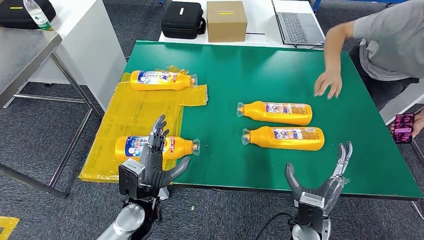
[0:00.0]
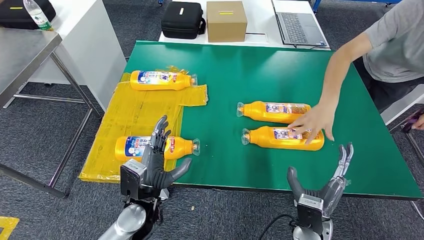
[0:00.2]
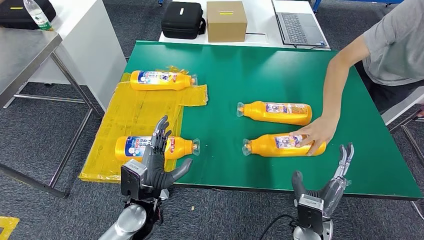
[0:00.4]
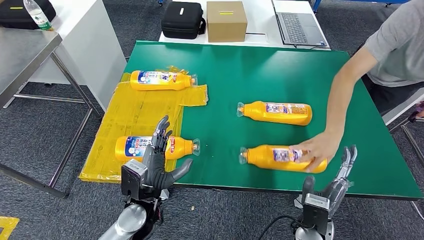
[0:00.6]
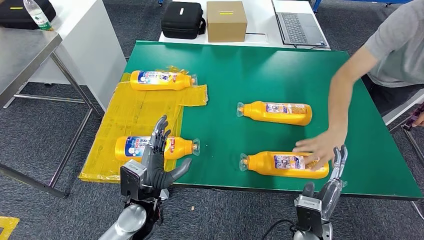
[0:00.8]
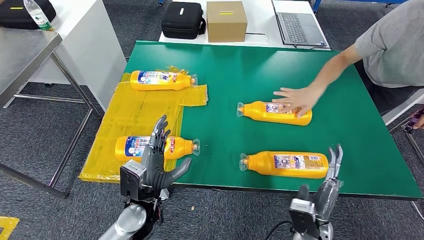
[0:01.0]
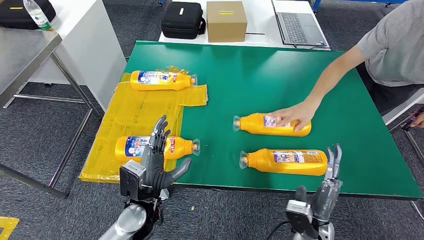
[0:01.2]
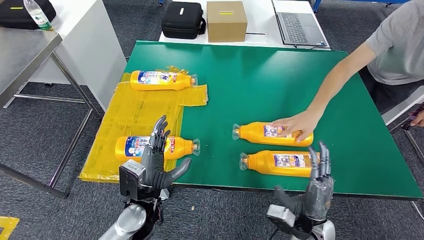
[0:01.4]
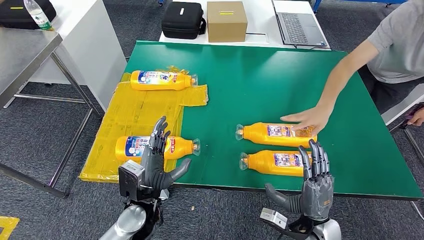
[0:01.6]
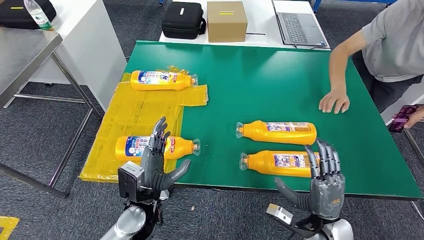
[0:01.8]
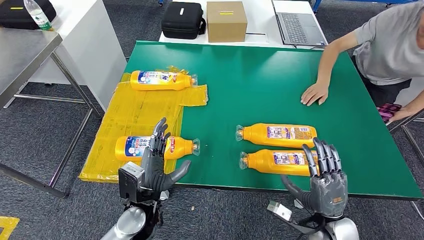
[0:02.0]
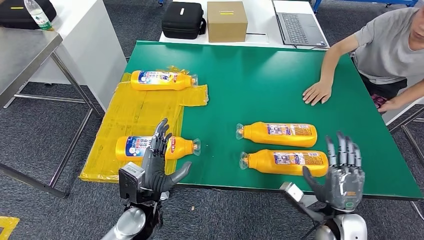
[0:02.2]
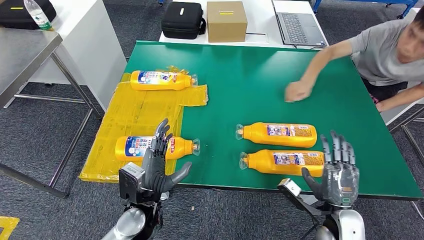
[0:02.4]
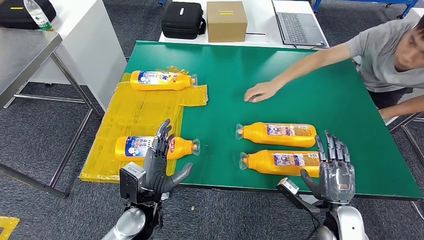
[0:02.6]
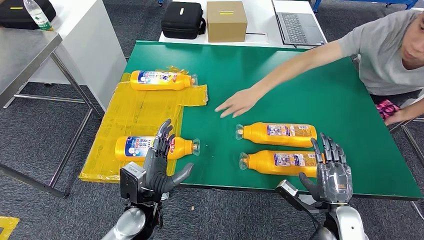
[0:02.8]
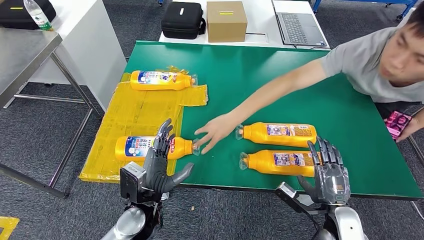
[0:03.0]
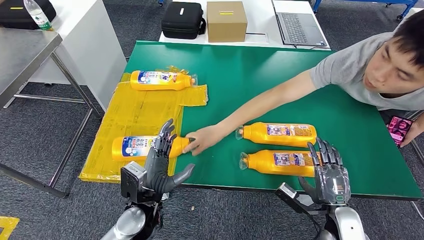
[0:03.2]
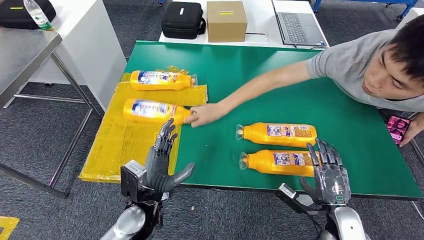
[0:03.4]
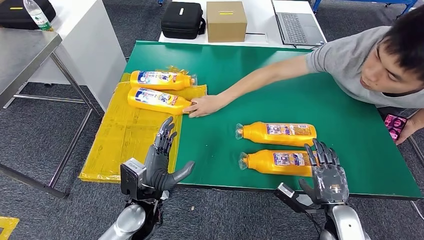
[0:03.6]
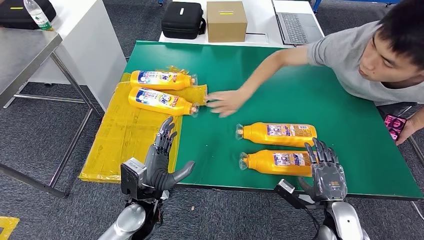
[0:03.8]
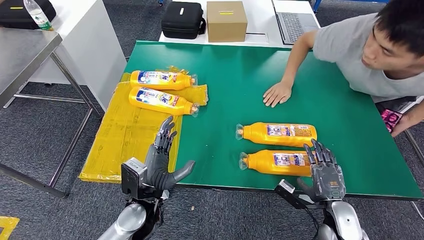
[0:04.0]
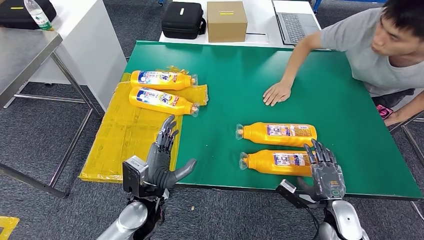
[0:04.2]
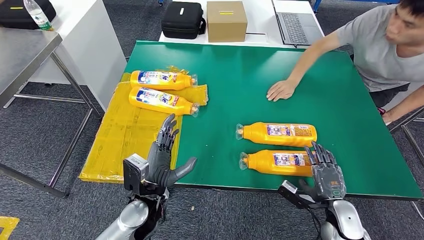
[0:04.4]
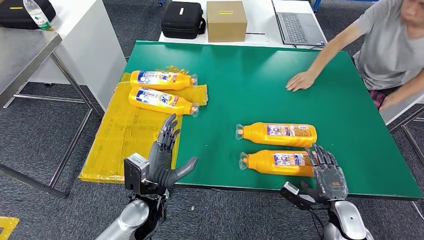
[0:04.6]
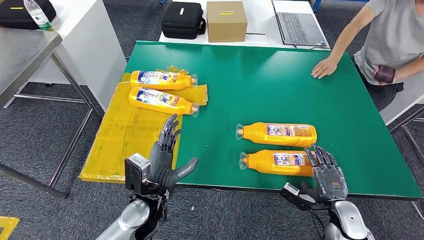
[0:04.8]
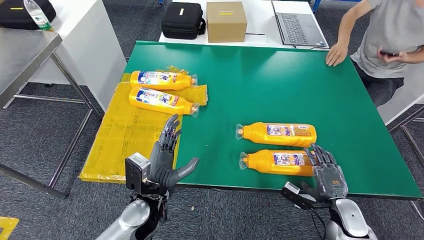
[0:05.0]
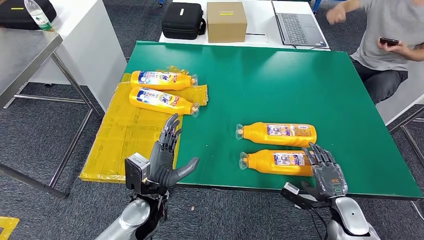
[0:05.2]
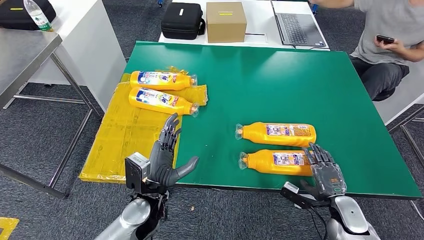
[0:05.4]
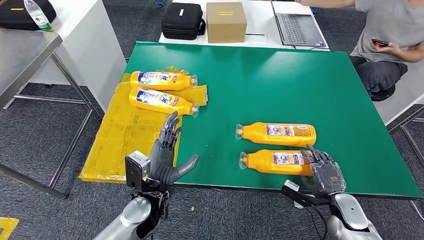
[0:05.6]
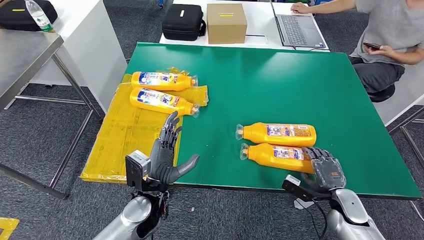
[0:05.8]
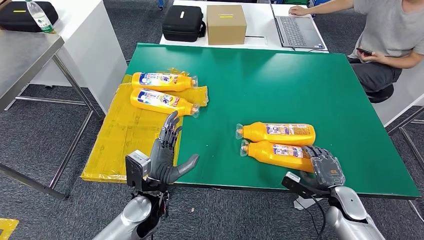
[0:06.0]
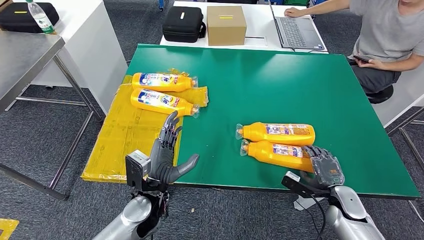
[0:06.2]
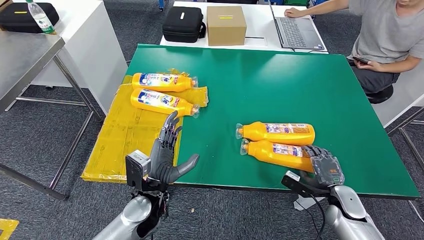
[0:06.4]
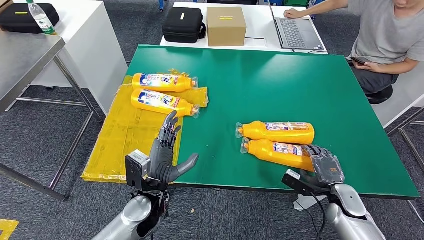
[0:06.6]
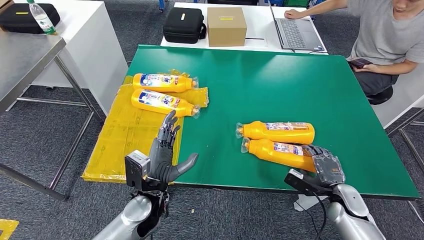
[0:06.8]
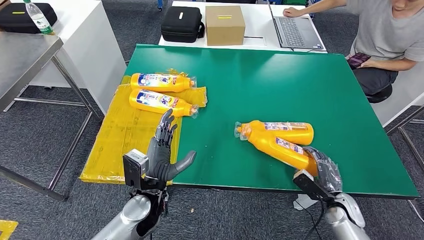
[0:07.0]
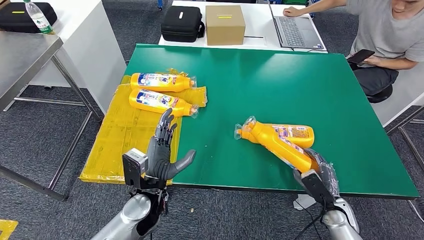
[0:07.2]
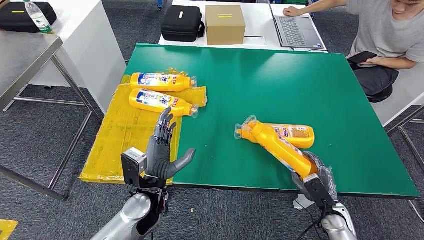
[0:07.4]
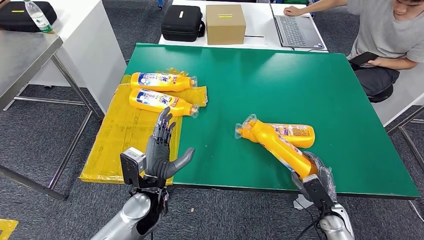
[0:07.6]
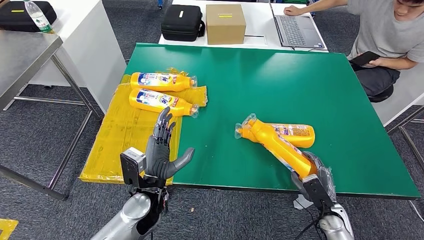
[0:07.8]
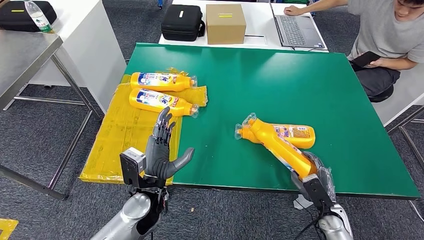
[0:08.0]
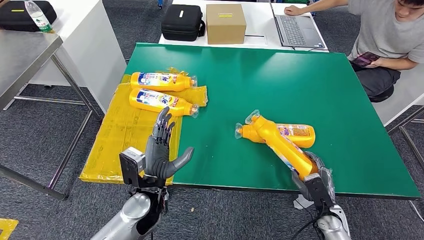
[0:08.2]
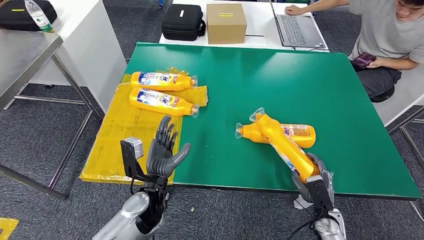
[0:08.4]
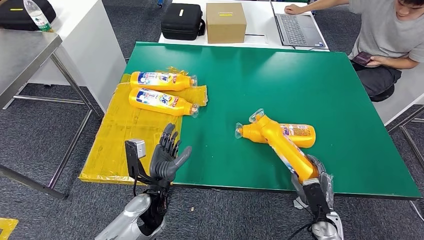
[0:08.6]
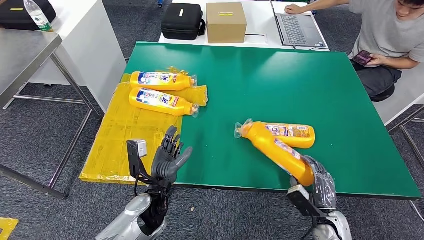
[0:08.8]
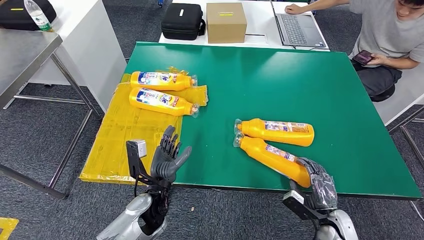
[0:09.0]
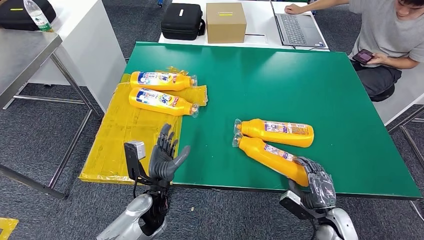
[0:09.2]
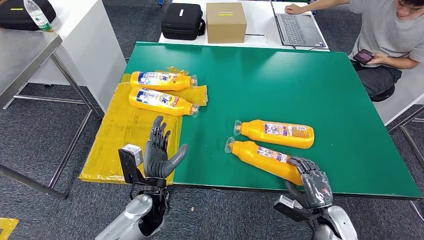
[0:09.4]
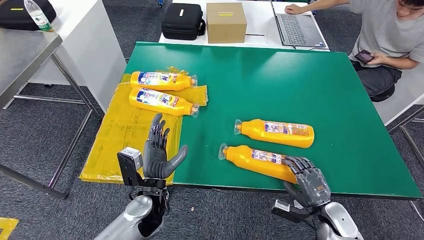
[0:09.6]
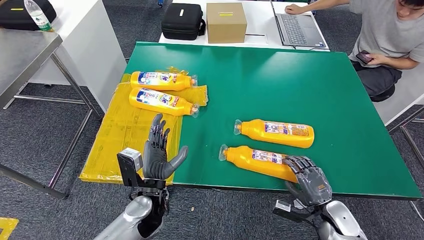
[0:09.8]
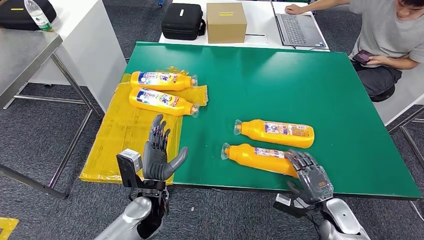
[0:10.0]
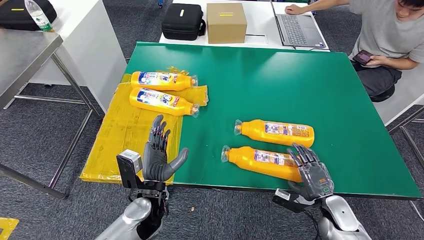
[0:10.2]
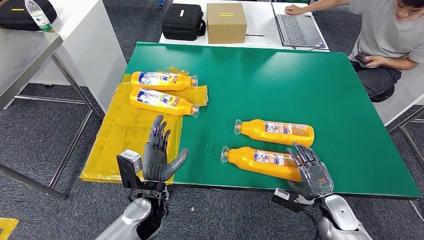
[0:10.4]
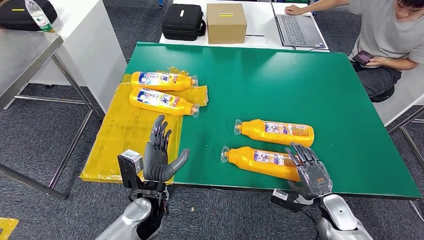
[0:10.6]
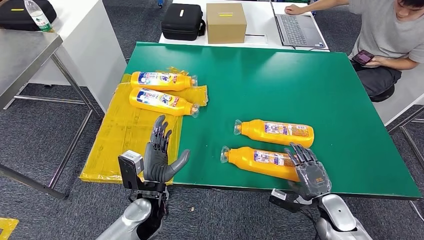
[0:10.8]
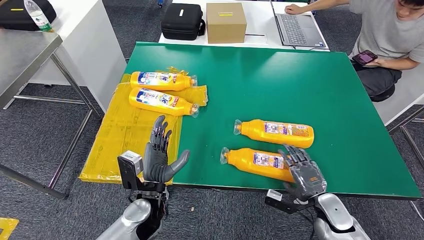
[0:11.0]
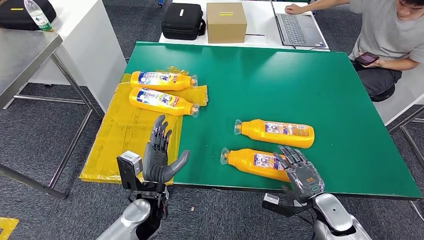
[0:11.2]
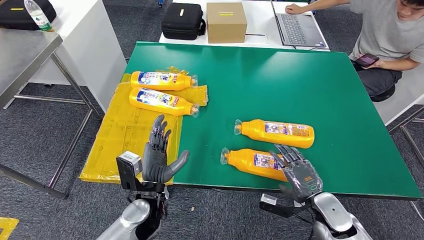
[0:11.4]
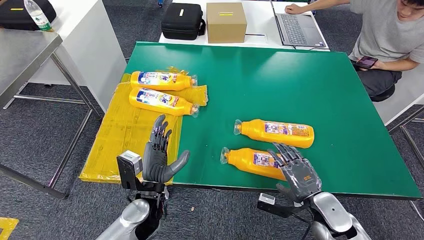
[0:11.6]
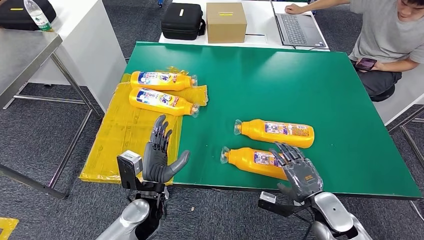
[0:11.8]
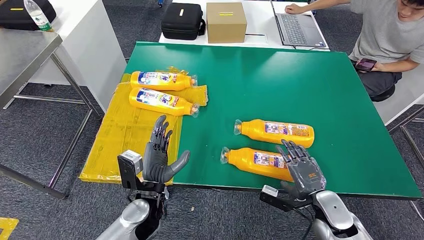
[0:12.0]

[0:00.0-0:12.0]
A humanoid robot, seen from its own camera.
0:01.6 to 0:03.0: The right hand shifts approximately 5 cm to the right.
0:03.0 to 0:04.4: The right hand moves some 5 cm.
0:06.0 to 0:07.6: The right hand shifts by some 5 cm.
0:10.4 to 0:12.0: The right hand goes roughly 10 cm upward and to the left.

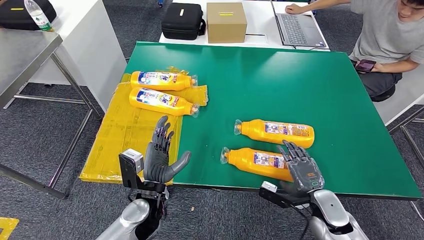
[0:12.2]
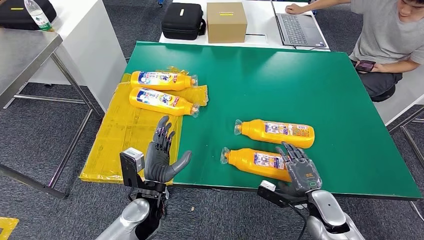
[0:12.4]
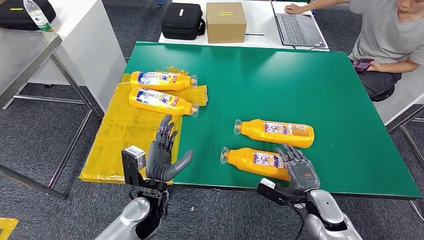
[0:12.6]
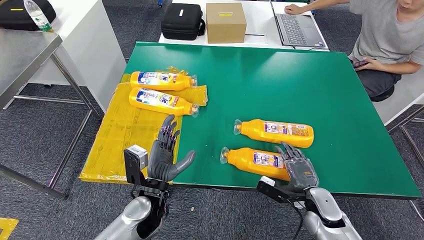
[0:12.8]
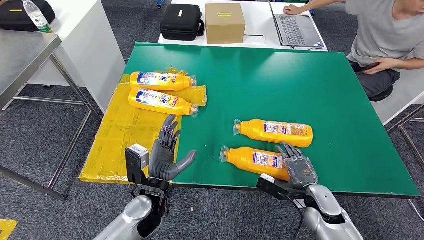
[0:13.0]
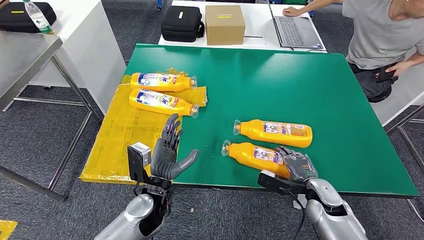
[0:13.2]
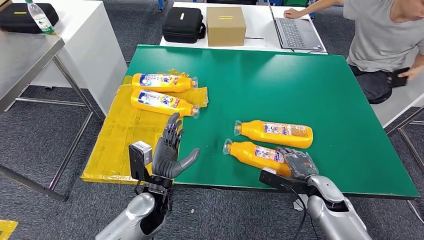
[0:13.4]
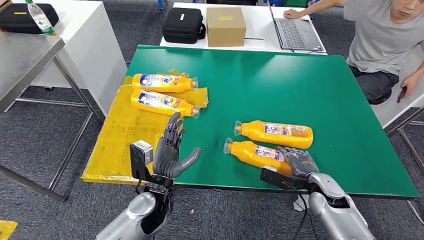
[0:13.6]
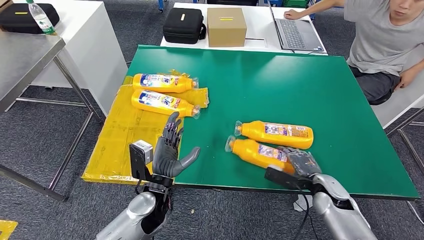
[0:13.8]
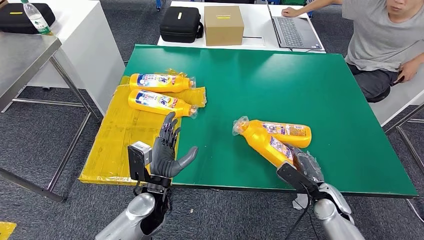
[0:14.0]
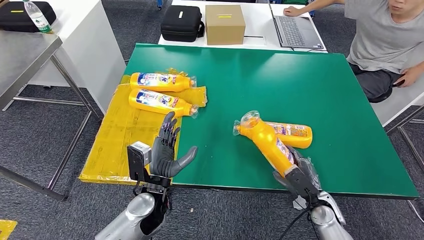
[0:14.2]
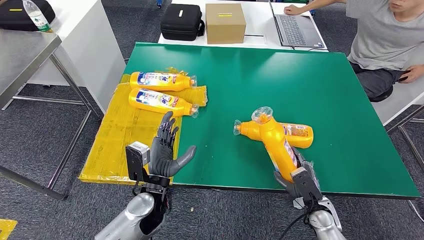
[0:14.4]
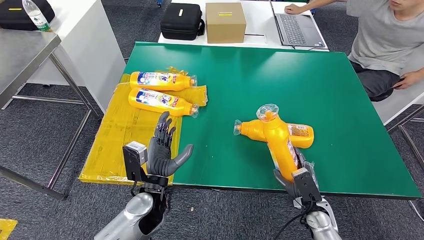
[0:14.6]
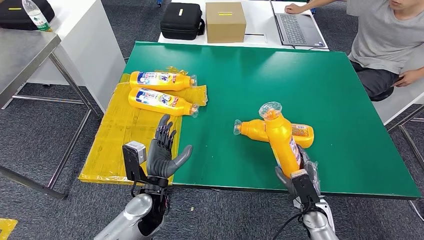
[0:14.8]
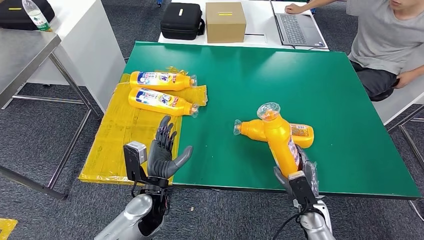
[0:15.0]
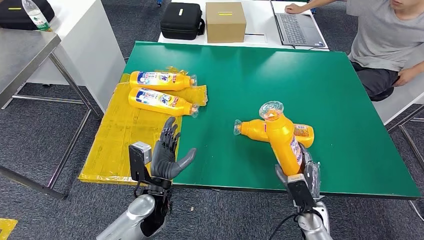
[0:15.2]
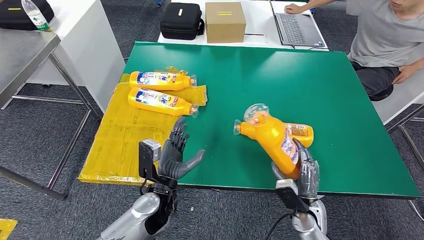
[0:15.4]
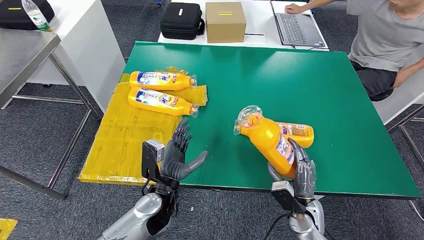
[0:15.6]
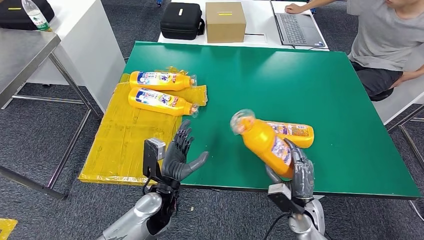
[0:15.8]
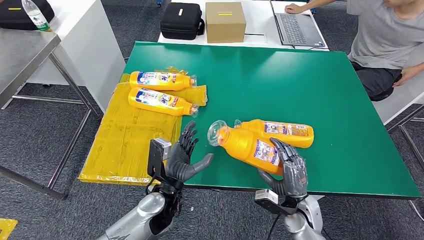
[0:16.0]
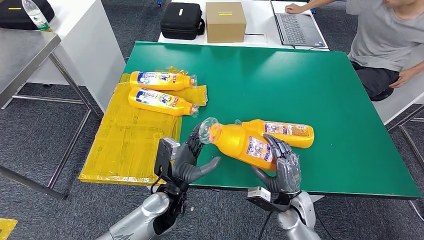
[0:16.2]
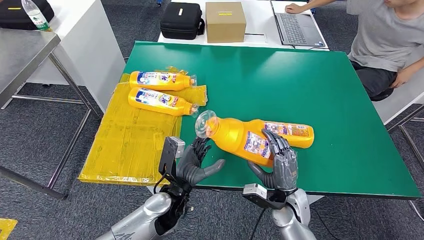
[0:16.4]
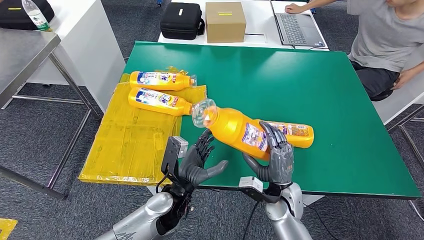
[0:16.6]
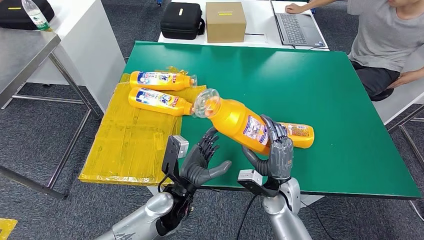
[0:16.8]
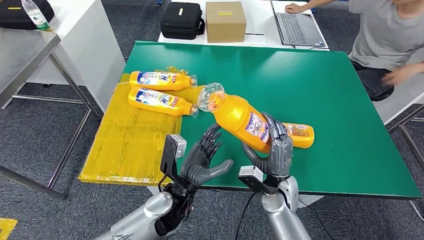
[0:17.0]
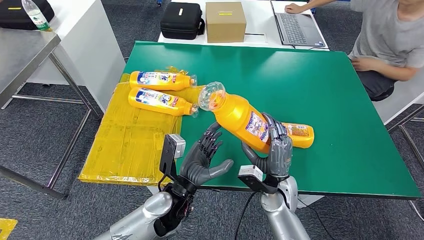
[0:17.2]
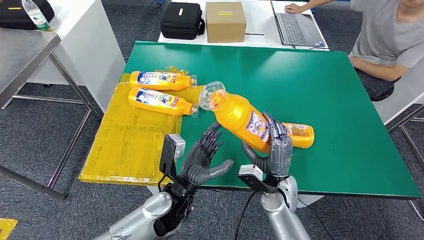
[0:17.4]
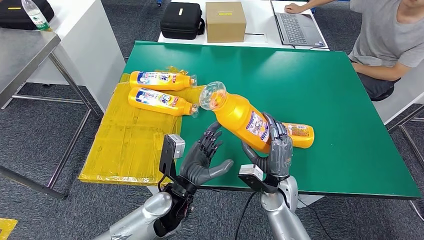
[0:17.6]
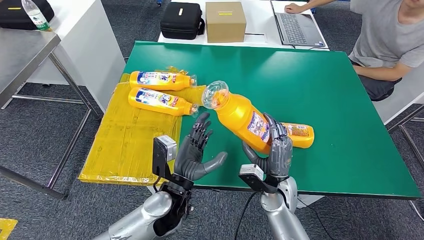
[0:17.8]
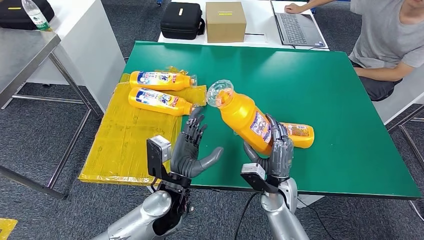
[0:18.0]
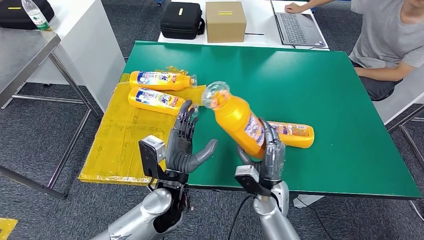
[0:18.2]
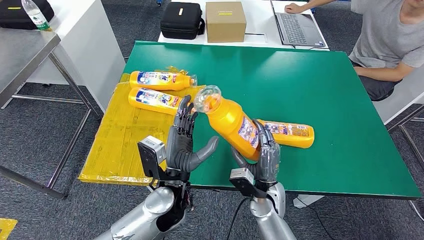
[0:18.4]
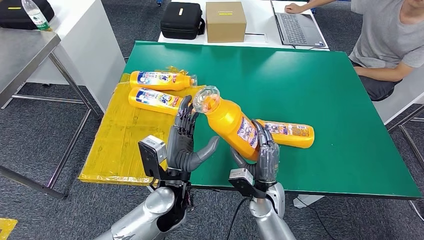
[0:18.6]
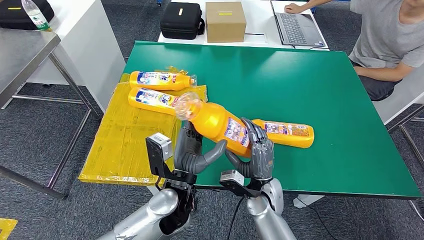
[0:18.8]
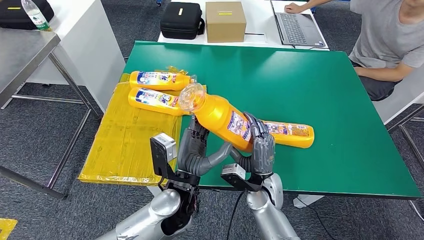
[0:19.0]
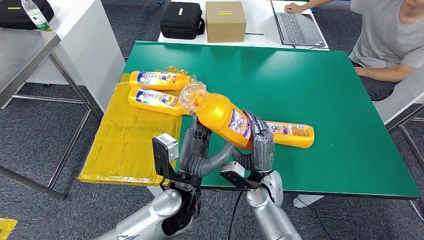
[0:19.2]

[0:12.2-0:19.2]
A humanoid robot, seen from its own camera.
Step, 0:12.2 to 0:16.6: Pick up the fast-moving consumer goods bottle from the table.
0:15.0 to 0:16.4: The right hand moves to the left and upward, about 10 cm.
0:16.4 to 0:17.8: The hands move only a little.
0:17.8 to 0:19.2: The hands move only a little.
